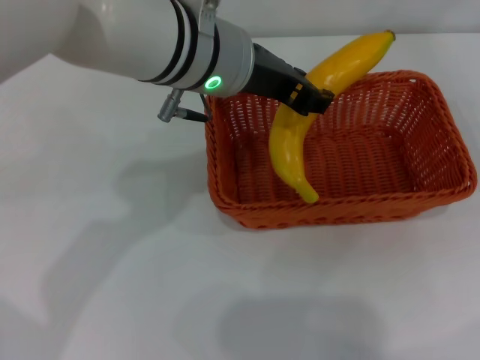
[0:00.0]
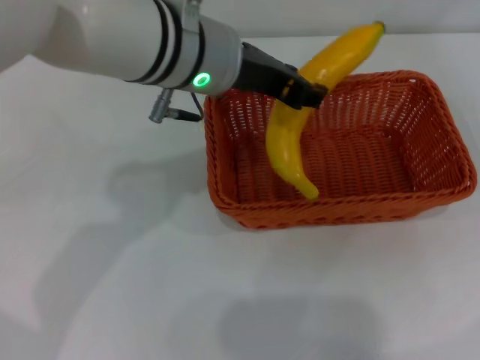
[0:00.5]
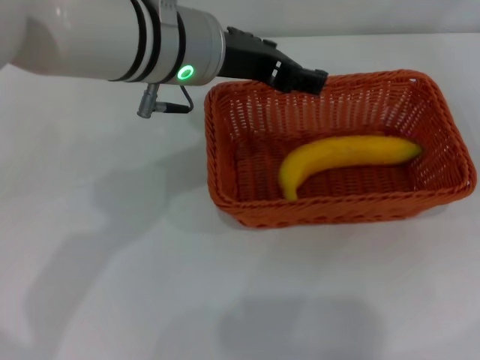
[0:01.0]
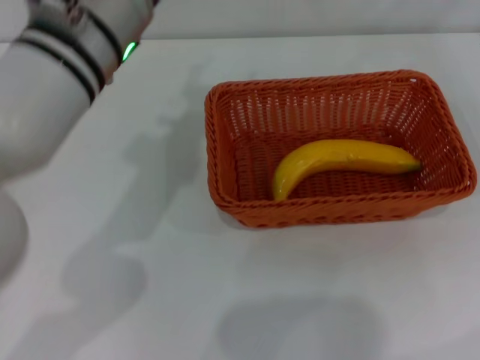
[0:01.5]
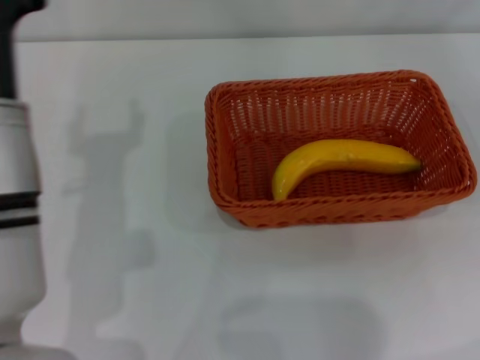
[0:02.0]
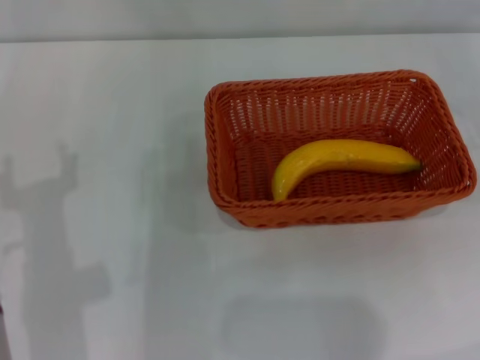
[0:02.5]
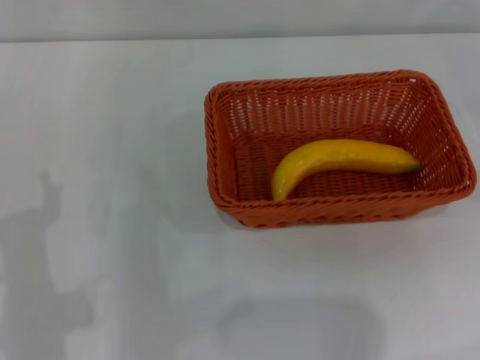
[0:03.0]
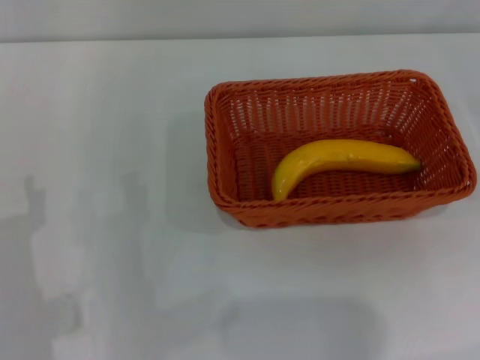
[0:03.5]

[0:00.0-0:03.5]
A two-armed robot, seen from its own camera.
0:00.0 to 0:02.0: The left gripper shifts about 15 cm to the left, backward and downward, and opens its fingers.
0:02.0 to 0:03.5: The left gripper moves downward, backward and to the left, some 15 cm.

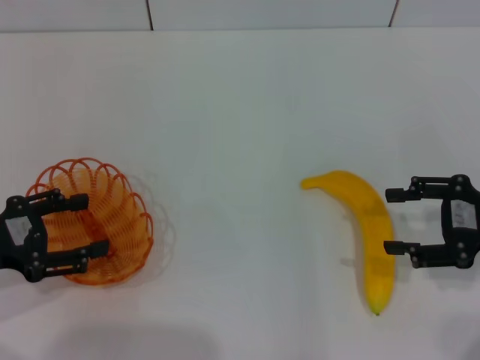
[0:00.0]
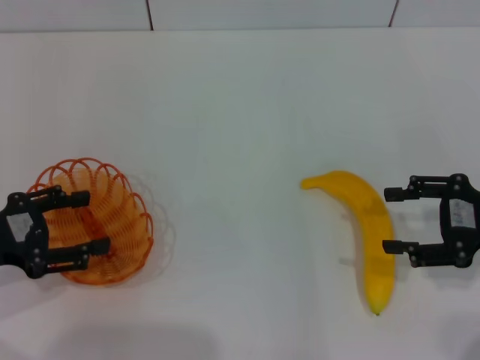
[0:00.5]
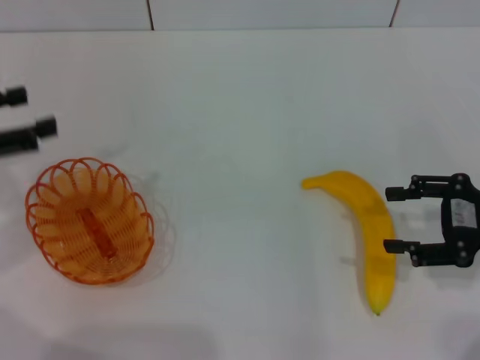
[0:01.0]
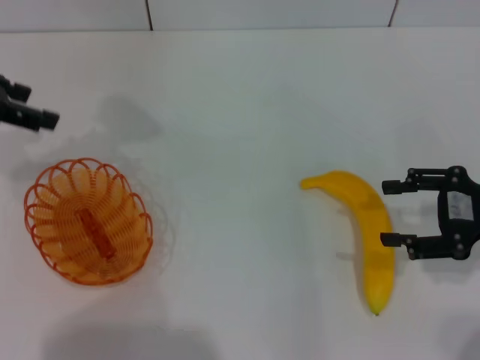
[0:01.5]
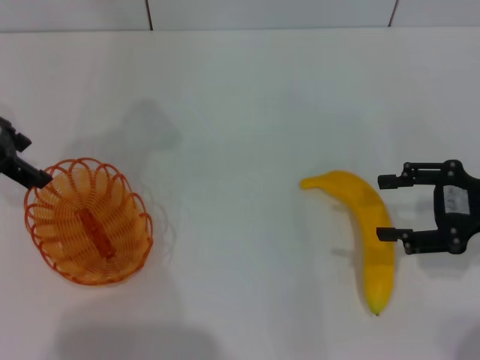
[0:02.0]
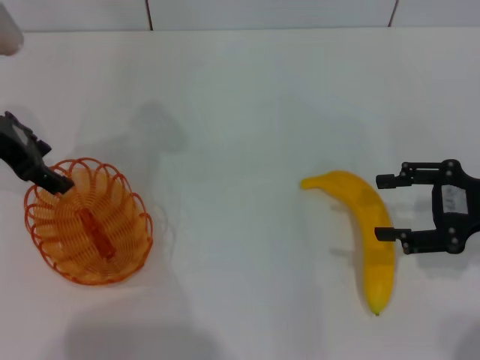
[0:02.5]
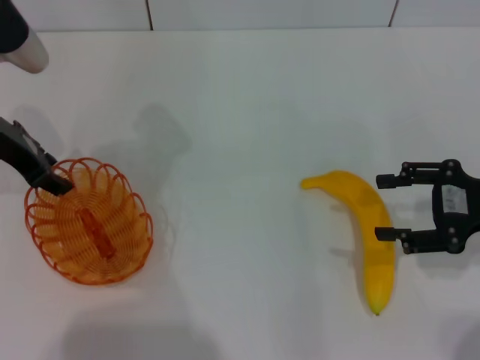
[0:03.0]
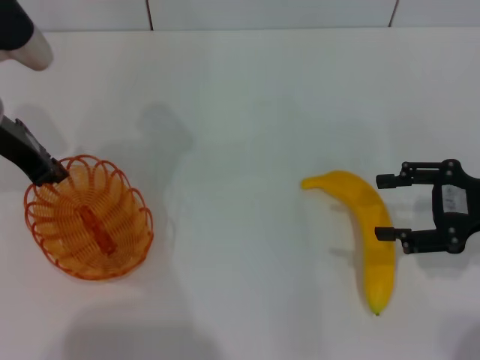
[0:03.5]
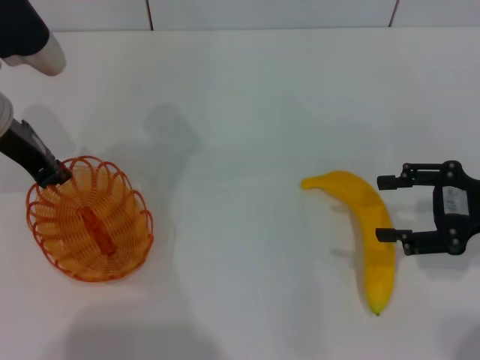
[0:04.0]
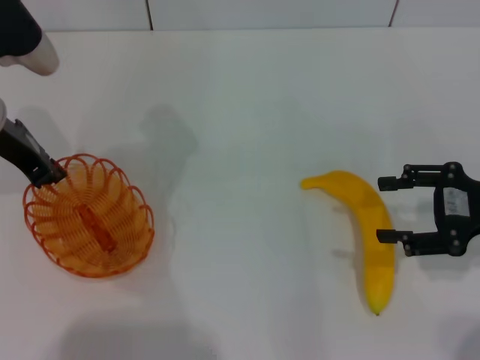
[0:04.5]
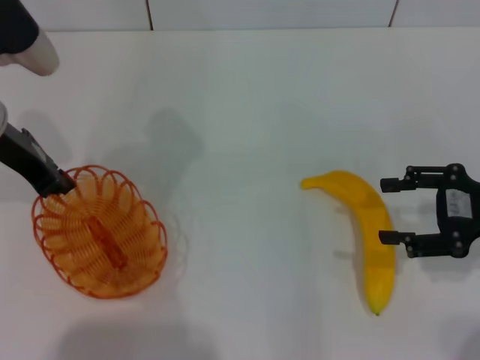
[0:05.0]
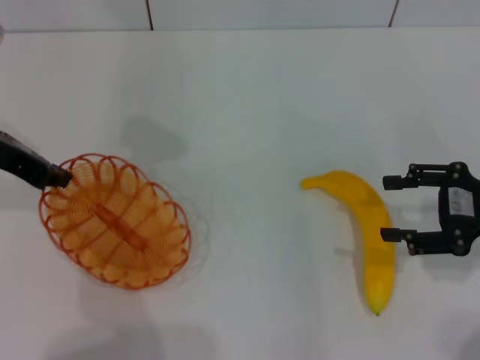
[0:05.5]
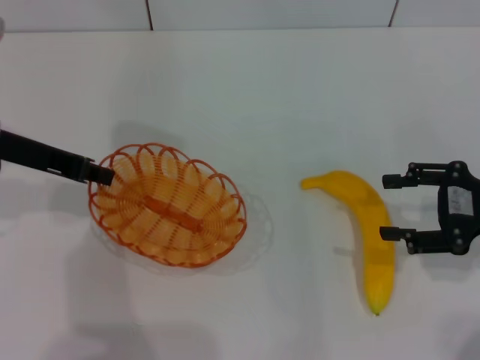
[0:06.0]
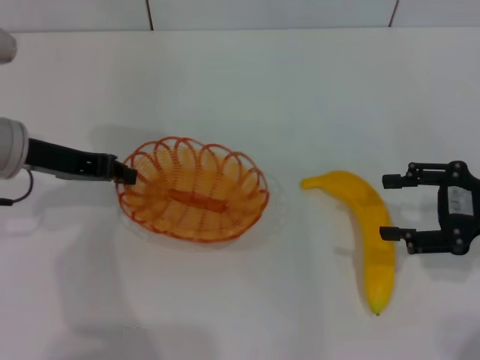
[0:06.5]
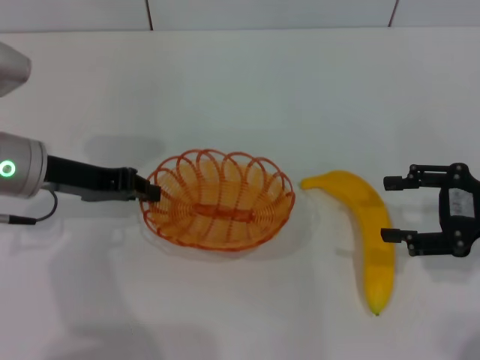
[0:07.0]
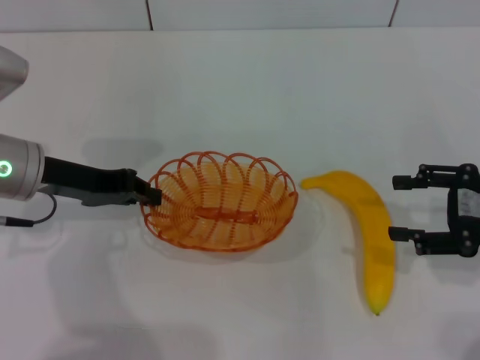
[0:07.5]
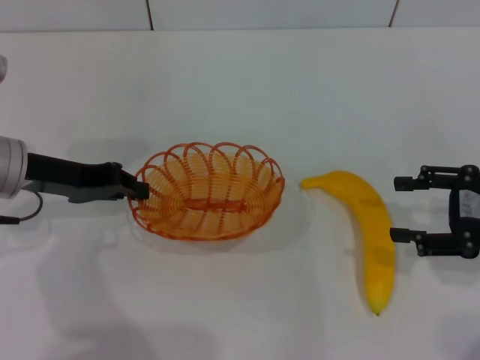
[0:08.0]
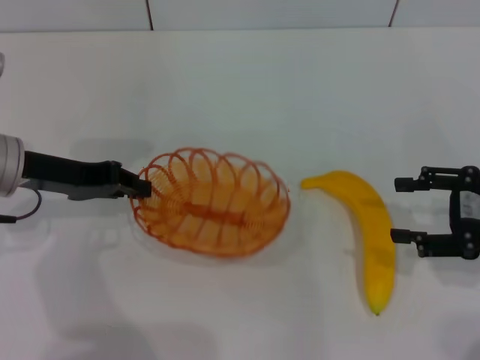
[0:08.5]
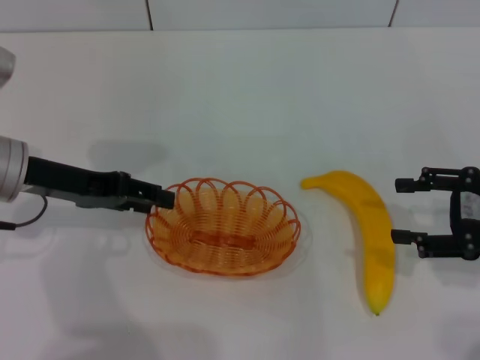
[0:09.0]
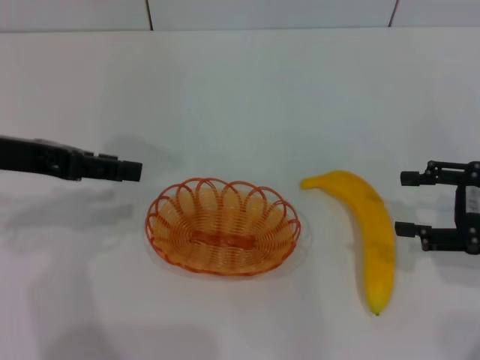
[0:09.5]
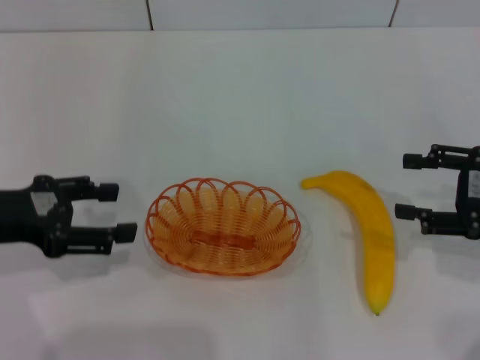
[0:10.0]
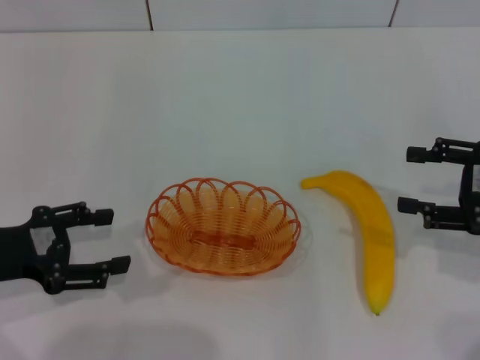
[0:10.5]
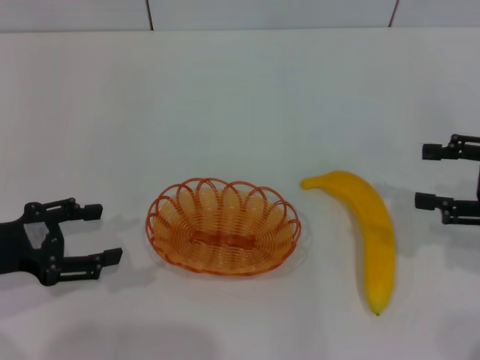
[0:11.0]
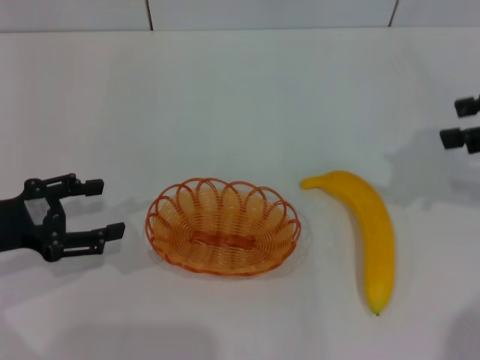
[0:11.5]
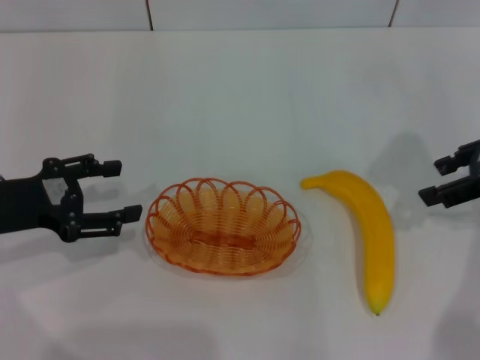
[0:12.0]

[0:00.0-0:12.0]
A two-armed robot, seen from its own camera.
Step, 0:00.0 to 0:04.5: Pick up the basket with the left gripper.
Step, 0:05.0 to 0:08.5: Place the basket in the center of view with the left gripper.
0:00.0 to 0:02.0: The left gripper is displaced forward and upward by approximately 20 cm.
0:02.0 to 0:04.0: The left gripper ends up approximately 5 cm from where it was, and closes up.
0:04.0 to 0:06.0: The left gripper shifts by roughly 5 cm.
0:06.0 to 0:08.0: The left gripper travels downward by approximately 5 cm.
0:08.0 to 0:10.0: The left gripper travels backward by about 5 cm, and opens up.
0:10.0 to 0:12.0: The right gripper goes about 10 cm upward and forward.

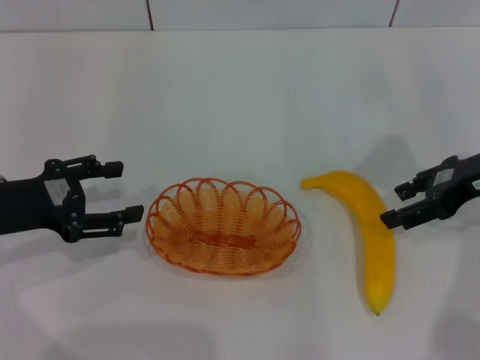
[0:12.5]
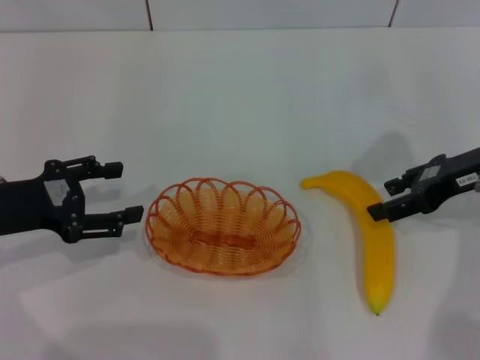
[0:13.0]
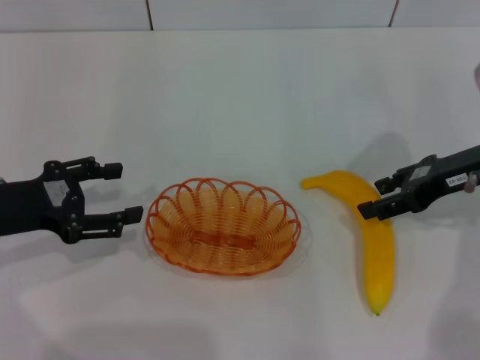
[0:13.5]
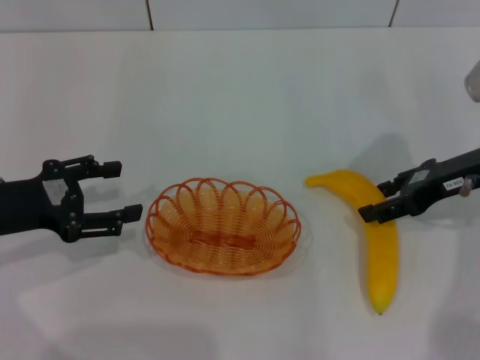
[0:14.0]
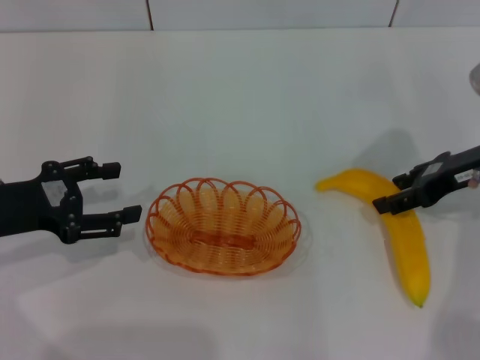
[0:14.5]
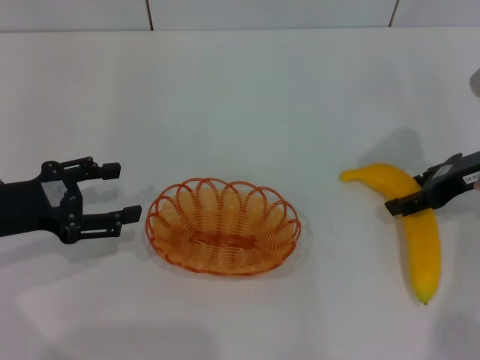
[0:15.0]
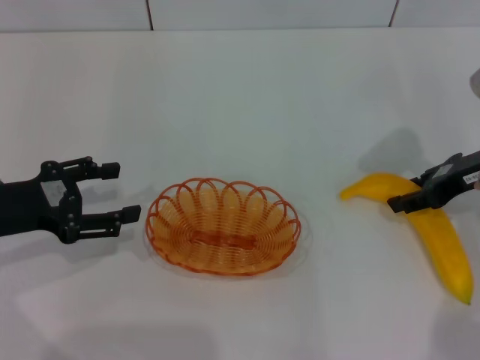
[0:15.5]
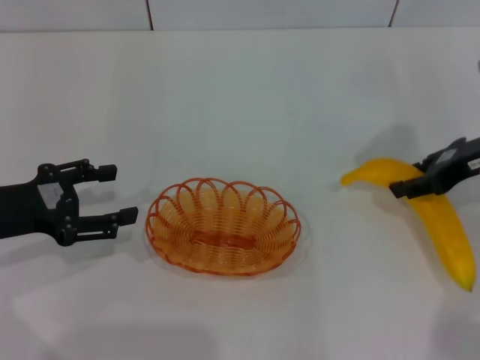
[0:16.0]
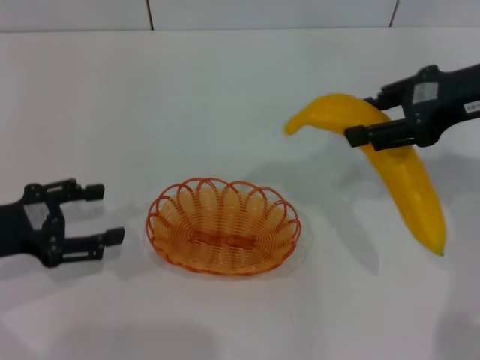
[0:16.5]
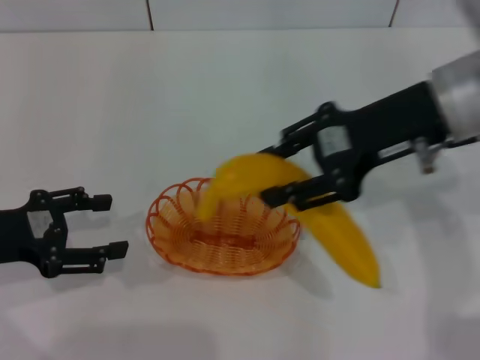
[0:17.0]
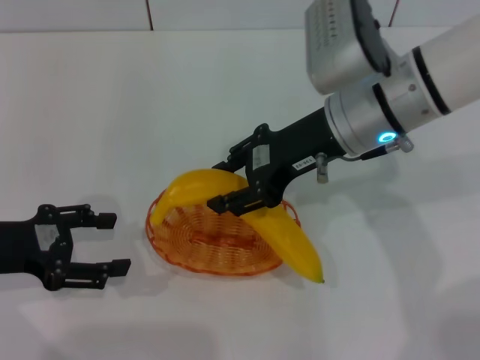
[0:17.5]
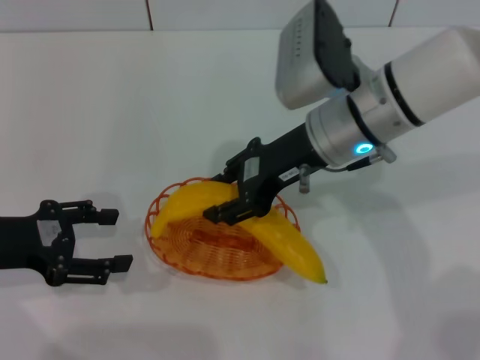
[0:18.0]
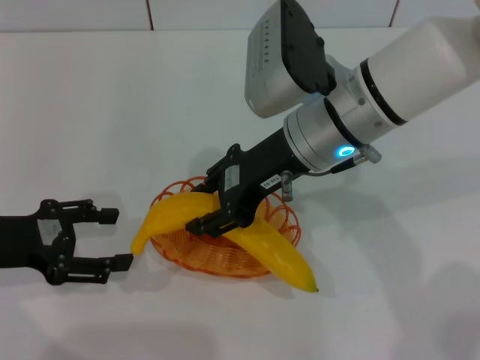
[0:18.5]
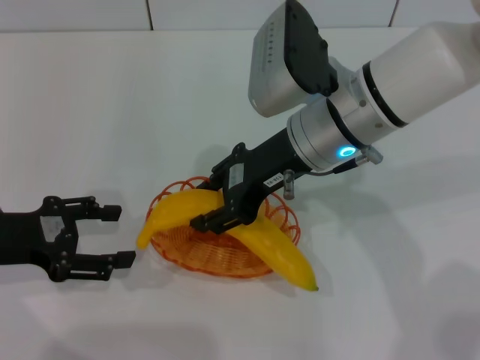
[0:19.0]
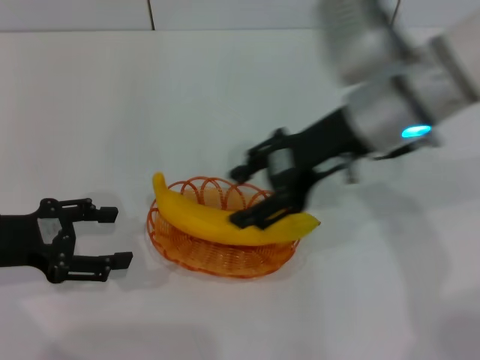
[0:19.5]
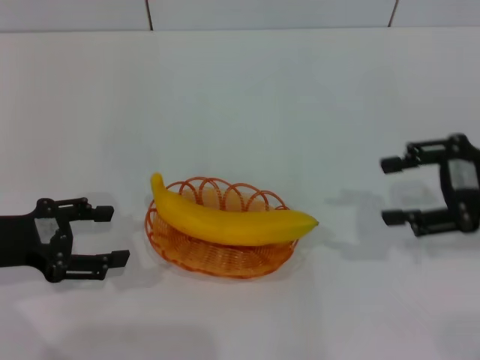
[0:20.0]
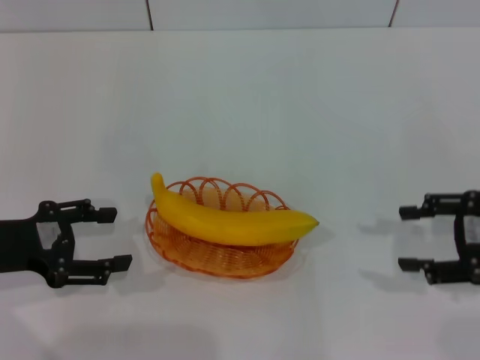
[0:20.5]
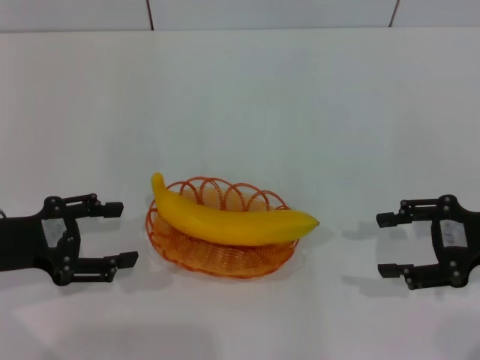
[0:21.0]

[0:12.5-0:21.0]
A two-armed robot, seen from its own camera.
Step, 0:12.5 to 0:16.5: Pick up the banana with the right gripper.
Step, 0:17.0 to 0:19.5: Place the banana into the basket with the right gripper.
0:12.5 to 0:14.5: The grippers move only a little.
0:14.5 to 0:16.5: The right gripper travels upward by approximately 10 cm.
0:16.5 to 0:19.0: The right gripper heads to the left, covering approximately 15 cm, and opens.
0:19.0 to 0:21.0: The right gripper heads to the right, covering about 25 cm.

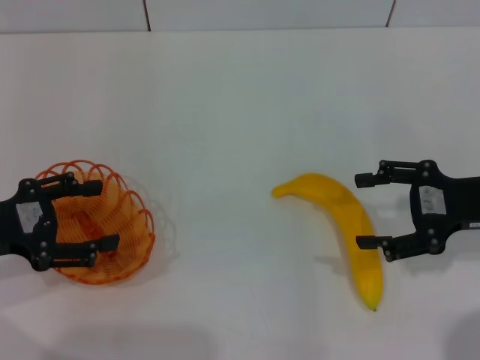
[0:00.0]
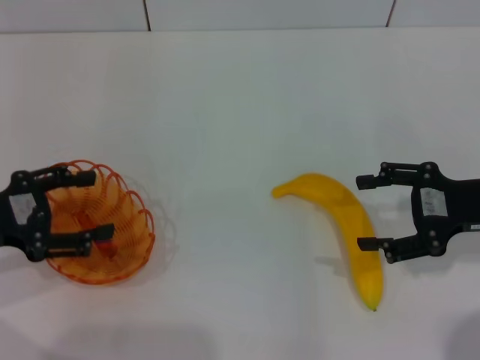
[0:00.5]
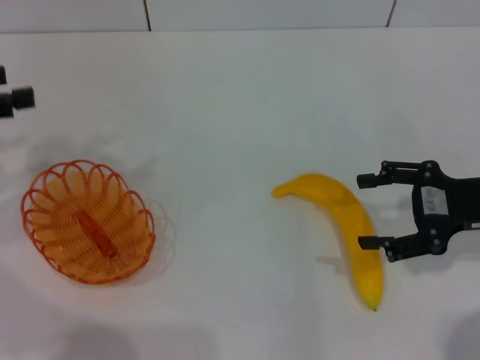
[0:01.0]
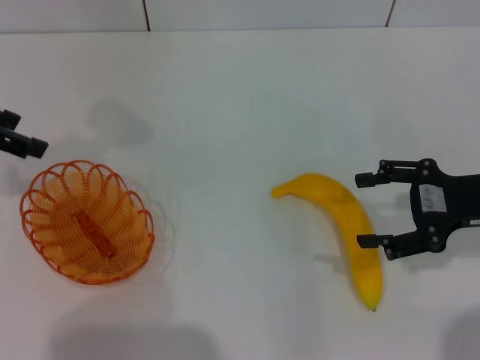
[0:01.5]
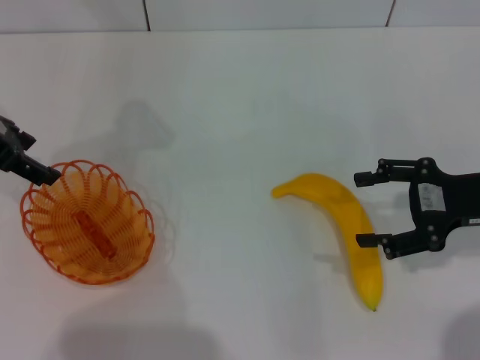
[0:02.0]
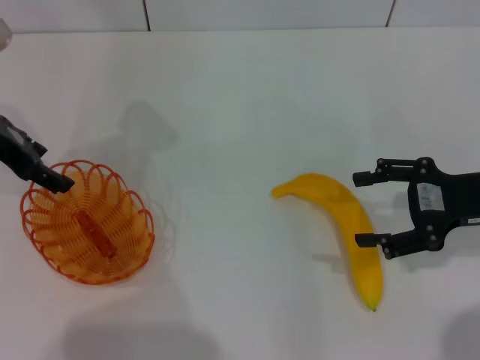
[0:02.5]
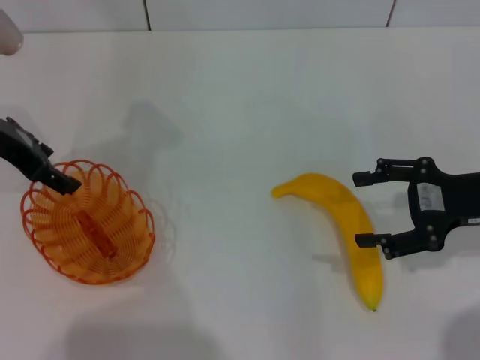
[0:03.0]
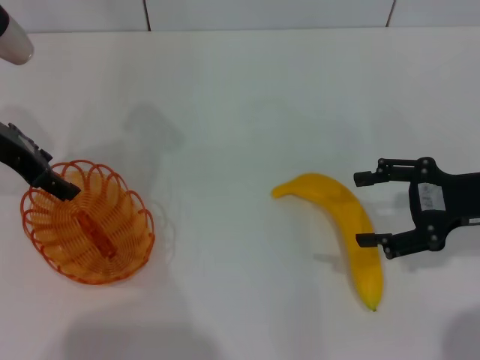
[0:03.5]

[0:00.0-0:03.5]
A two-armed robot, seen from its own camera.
0:00.0 to 0:02.0: The left gripper travels forward and upward by about 15 cm.
0:02.0 to 0:03.5: The grippers make only small movements.
